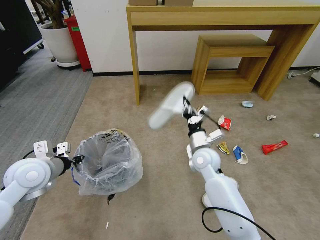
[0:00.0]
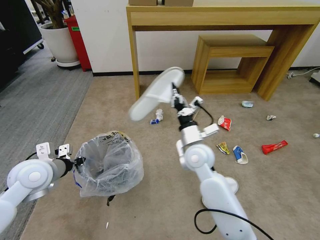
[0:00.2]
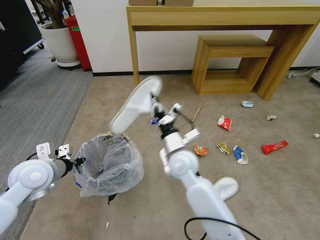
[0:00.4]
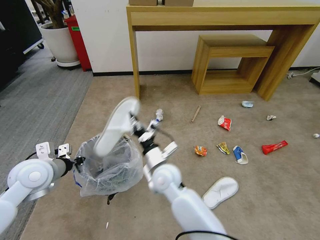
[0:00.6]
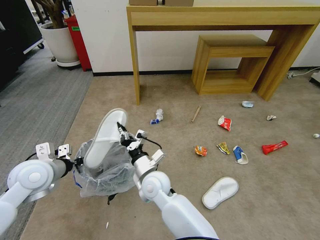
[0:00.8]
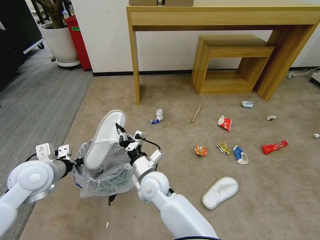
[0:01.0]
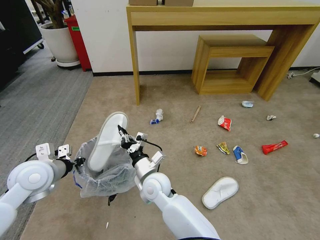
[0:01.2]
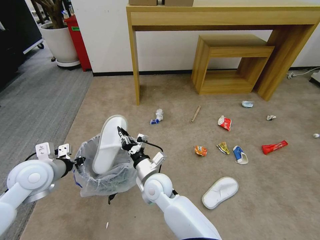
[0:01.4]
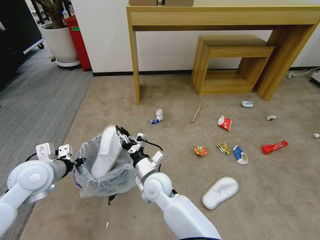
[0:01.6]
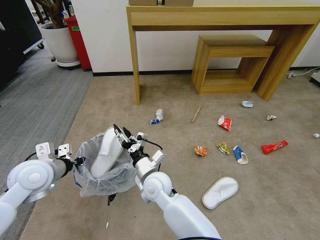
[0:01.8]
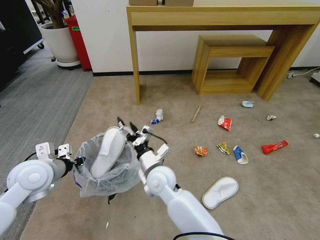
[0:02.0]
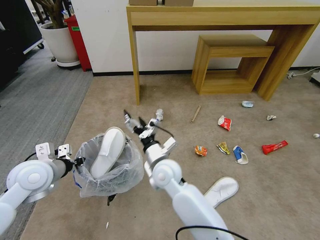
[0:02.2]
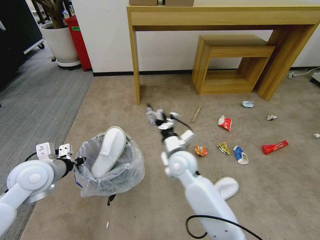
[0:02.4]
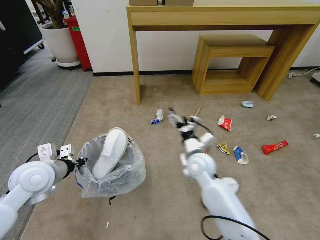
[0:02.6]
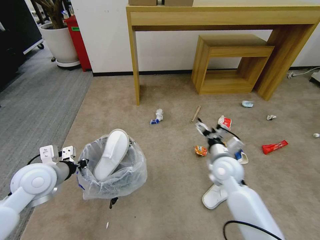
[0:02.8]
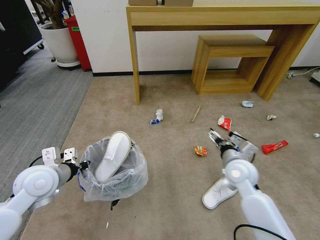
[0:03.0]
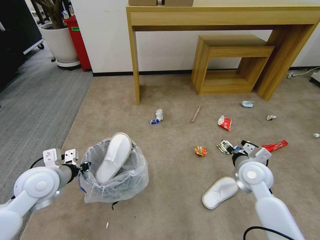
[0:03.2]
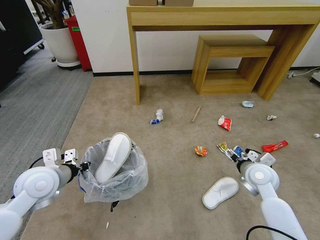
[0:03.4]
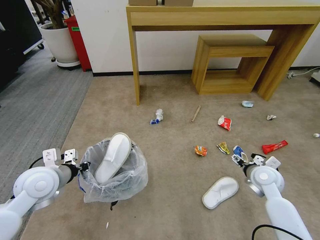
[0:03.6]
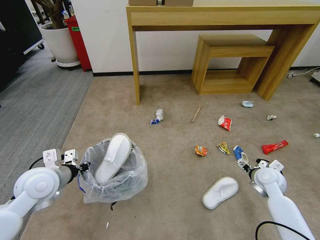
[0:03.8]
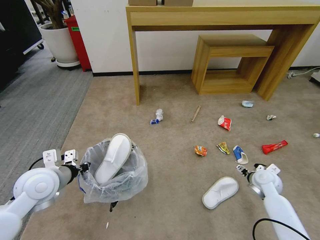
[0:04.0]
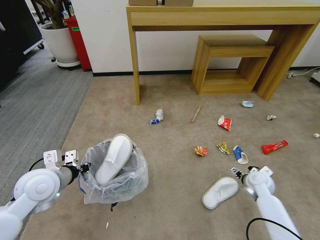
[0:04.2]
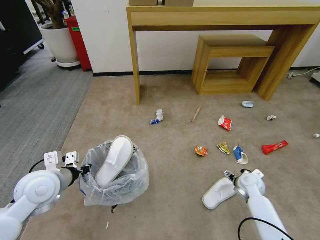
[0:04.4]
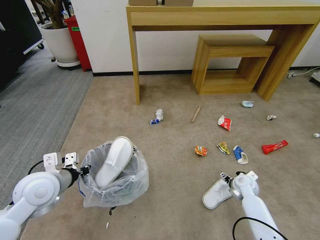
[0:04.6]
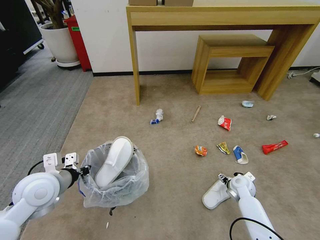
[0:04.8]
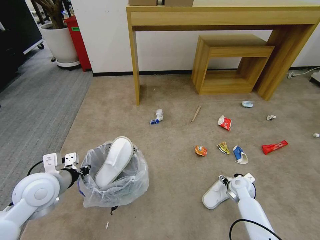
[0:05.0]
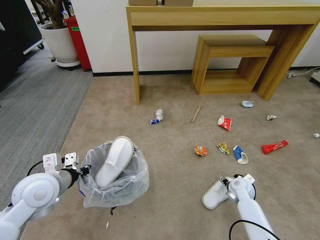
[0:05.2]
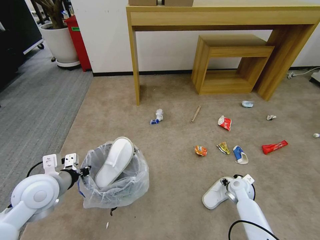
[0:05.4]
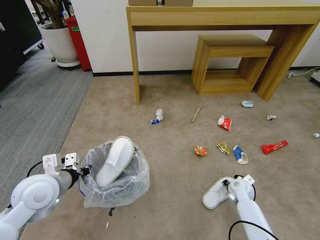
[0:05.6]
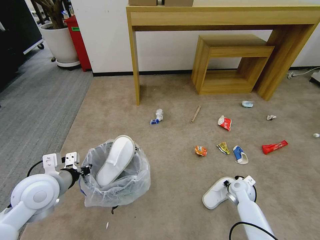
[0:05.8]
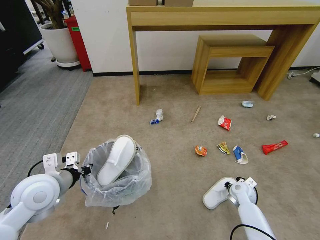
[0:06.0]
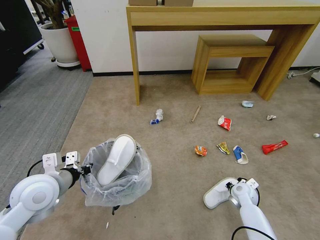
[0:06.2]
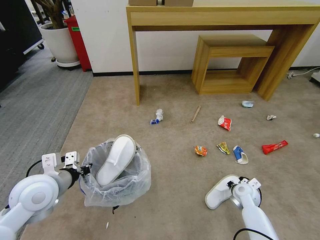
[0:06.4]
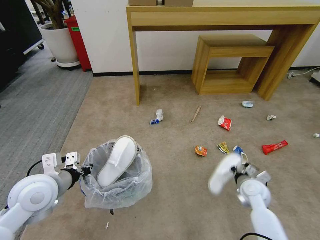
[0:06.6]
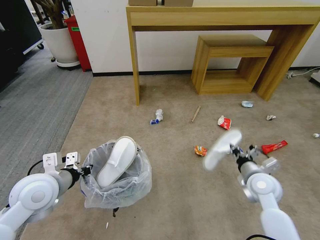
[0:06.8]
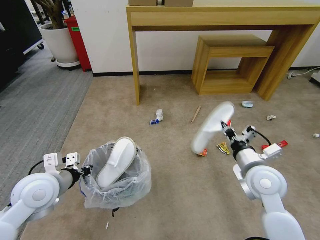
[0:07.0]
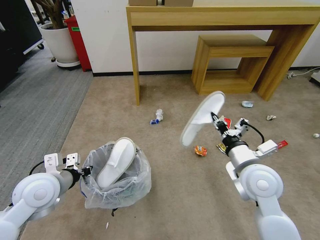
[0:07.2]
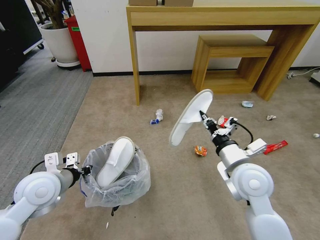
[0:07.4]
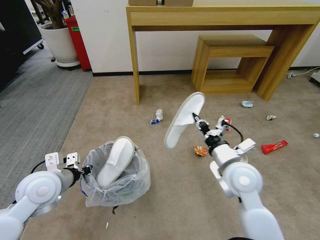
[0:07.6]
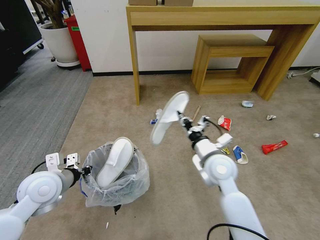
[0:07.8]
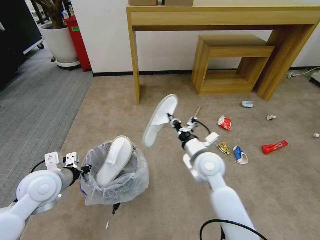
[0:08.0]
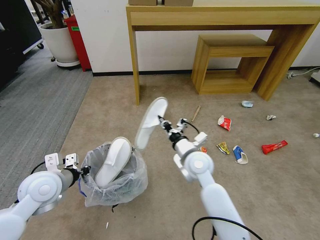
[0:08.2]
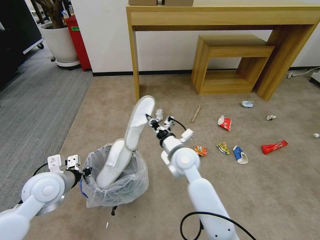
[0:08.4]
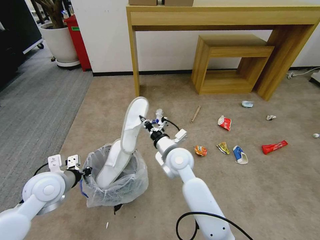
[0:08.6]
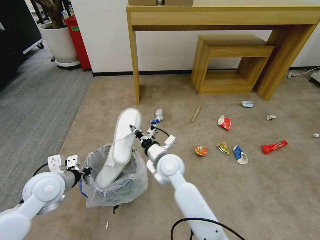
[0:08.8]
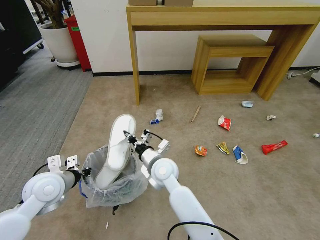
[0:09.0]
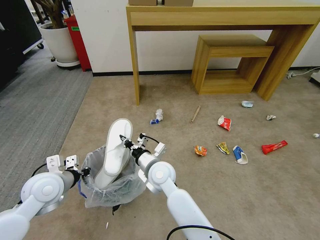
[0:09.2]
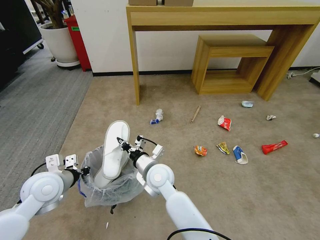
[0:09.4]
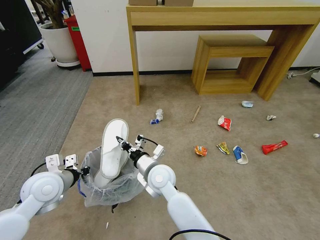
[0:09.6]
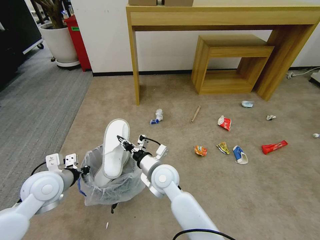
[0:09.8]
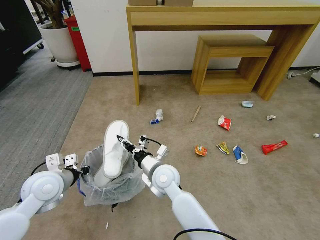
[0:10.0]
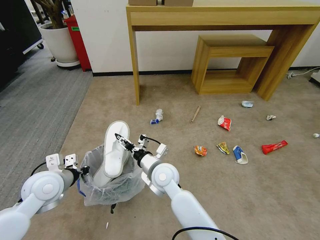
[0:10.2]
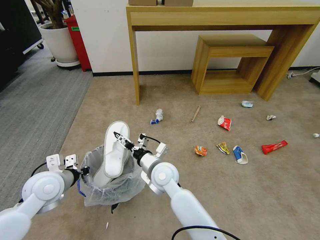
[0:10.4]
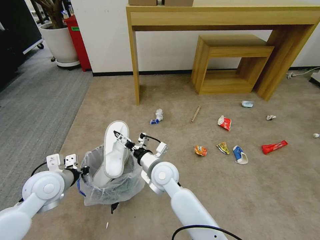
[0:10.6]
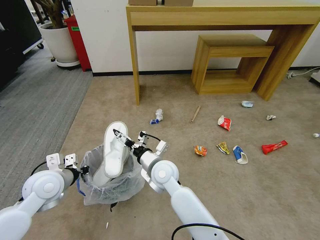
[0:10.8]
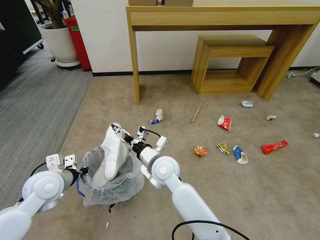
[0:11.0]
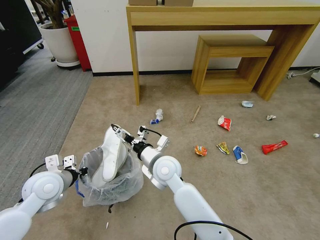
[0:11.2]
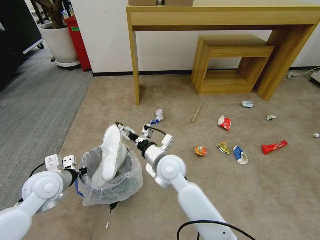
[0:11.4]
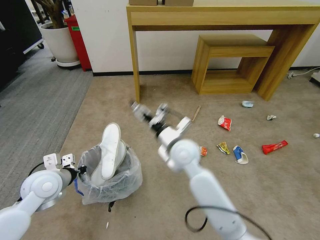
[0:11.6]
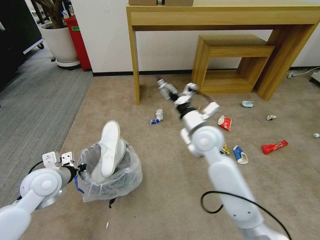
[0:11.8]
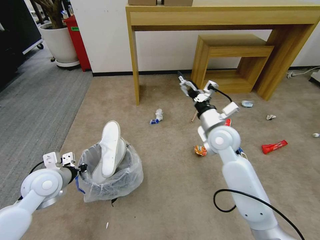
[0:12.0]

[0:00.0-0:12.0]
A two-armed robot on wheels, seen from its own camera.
Task of the whole recording: Pick up the trash bin and place the garbage on the floor into it.
0:00.0 to 0:01.6: The right gripper travels to the left and backward by approximately 20 cm, and opens its fingers.
0:01.6 to 0:03.0: The right gripper travels to the right by roughly 30 cm, and opens its fingers.
0:03.0 to 0:04.4: The right gripper is displaced downward and to the right by about 20 cm.
0:04.4 to 0:06.0: The right gripper moves some 5 cm, and closes its fingers.
0:06.0 to 0:07.6: The right gripper travels upward and to the left by approximately 30 cm.
0:07.6 to 0:09.0: The right gripper moves to the left, approximately 20 cm.
0:09.0 to 0:10.4: The right gripper opens its fingers.
0:10.4 to 0:12.0: The right gripper heads to the right and upward, covering some 20 cm.

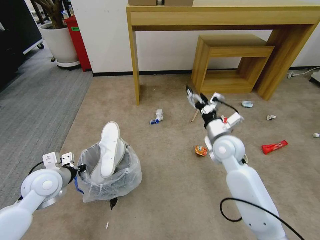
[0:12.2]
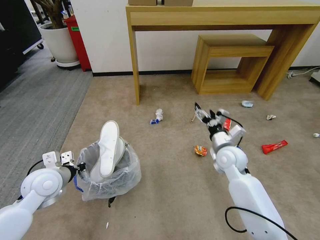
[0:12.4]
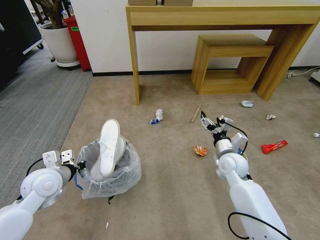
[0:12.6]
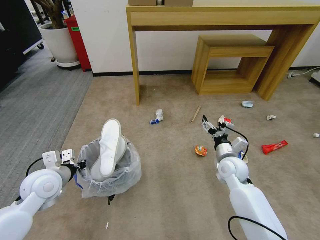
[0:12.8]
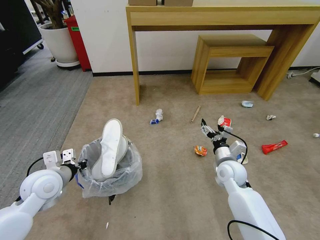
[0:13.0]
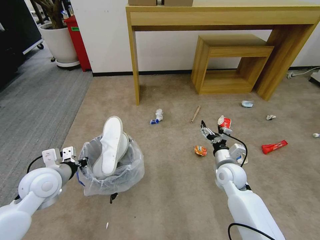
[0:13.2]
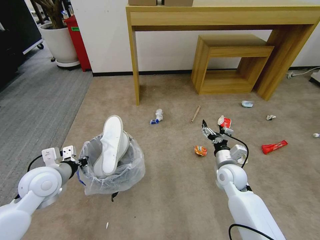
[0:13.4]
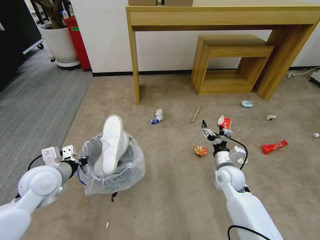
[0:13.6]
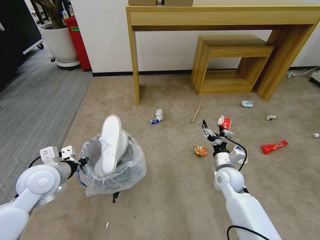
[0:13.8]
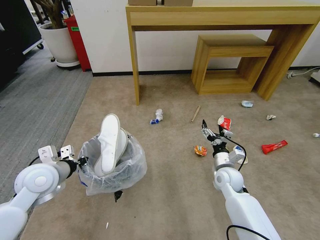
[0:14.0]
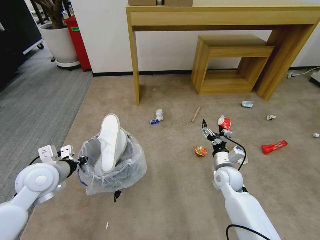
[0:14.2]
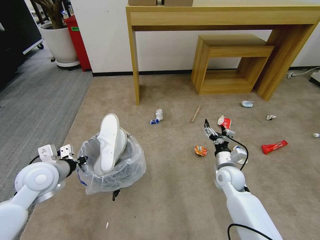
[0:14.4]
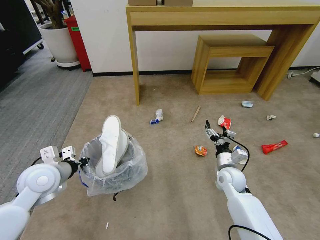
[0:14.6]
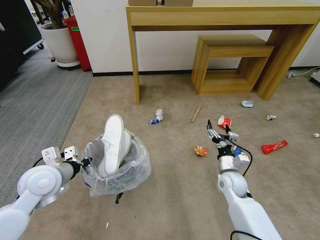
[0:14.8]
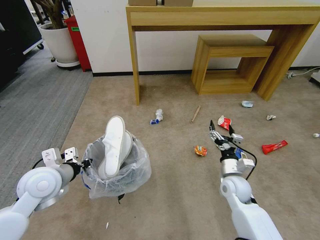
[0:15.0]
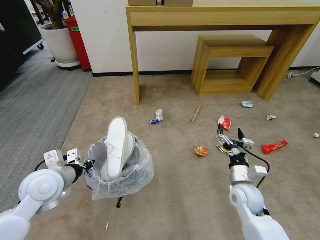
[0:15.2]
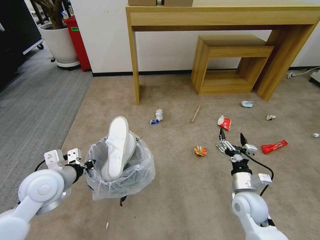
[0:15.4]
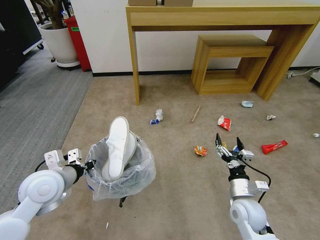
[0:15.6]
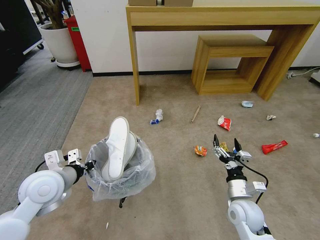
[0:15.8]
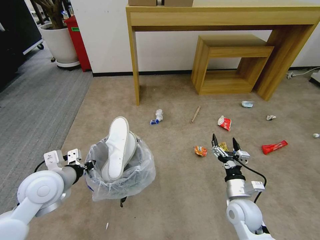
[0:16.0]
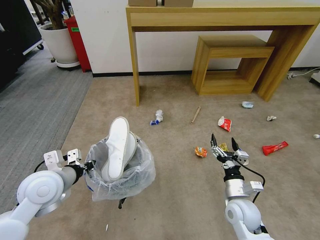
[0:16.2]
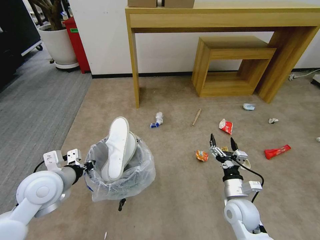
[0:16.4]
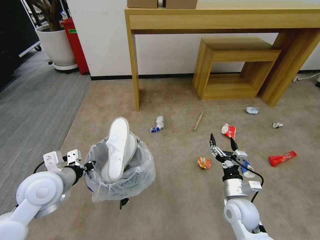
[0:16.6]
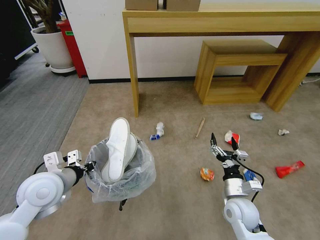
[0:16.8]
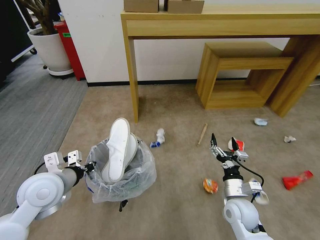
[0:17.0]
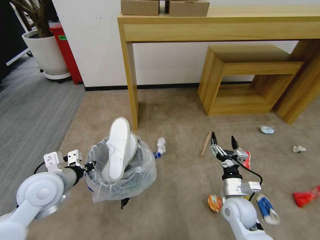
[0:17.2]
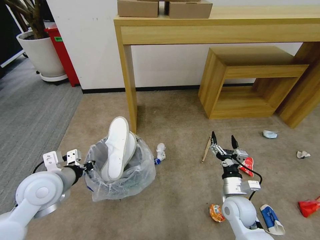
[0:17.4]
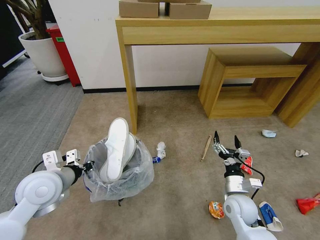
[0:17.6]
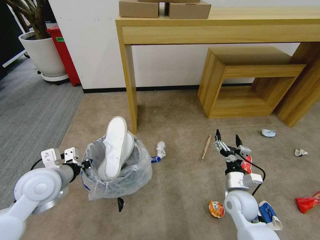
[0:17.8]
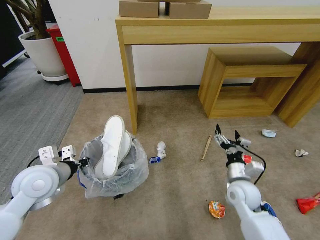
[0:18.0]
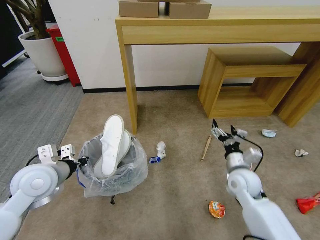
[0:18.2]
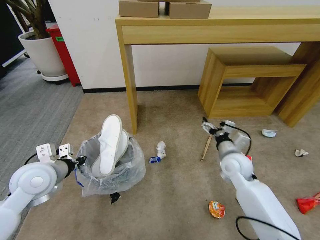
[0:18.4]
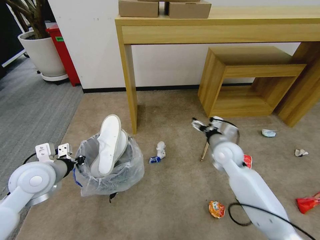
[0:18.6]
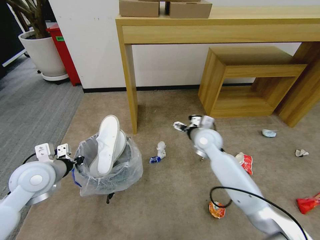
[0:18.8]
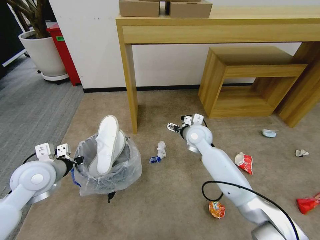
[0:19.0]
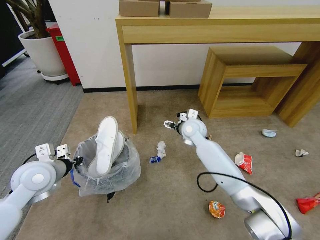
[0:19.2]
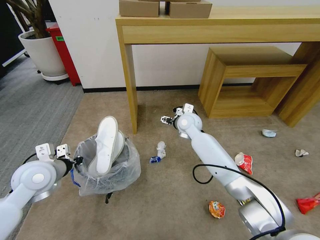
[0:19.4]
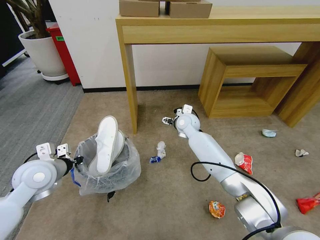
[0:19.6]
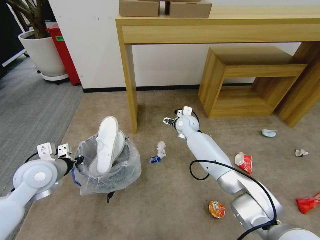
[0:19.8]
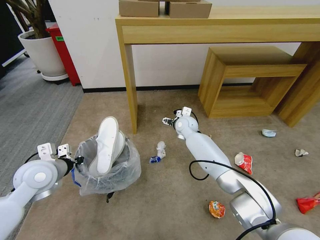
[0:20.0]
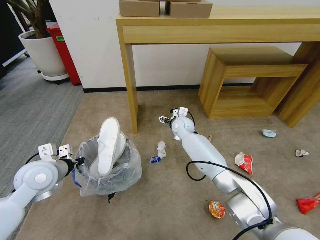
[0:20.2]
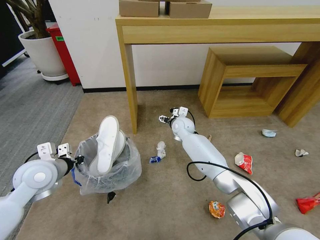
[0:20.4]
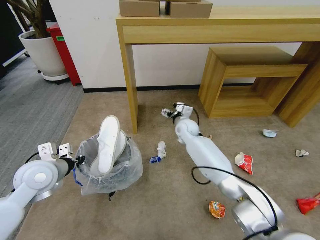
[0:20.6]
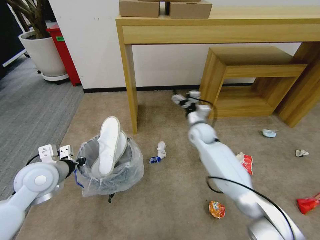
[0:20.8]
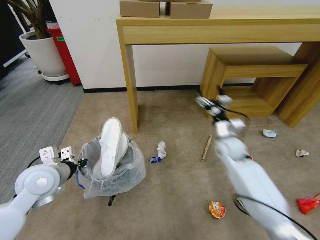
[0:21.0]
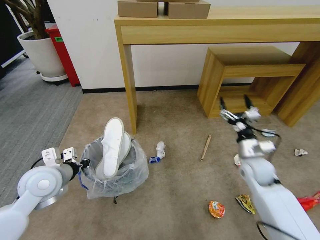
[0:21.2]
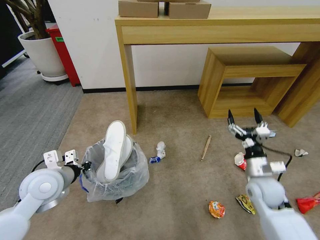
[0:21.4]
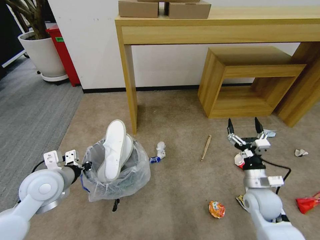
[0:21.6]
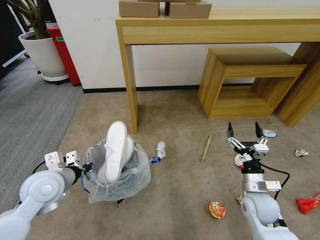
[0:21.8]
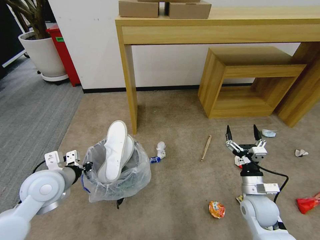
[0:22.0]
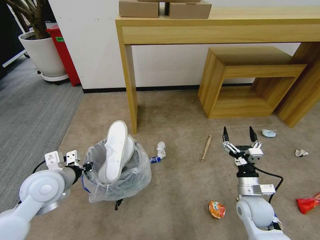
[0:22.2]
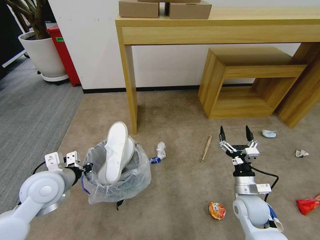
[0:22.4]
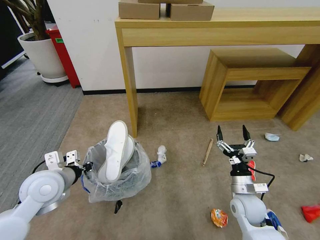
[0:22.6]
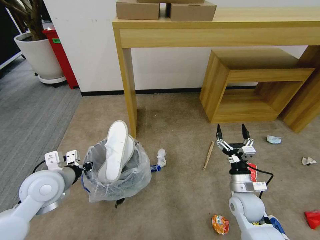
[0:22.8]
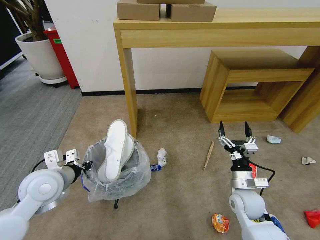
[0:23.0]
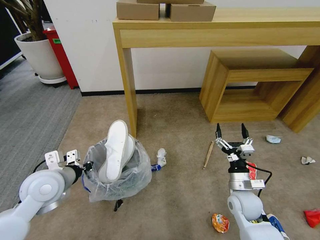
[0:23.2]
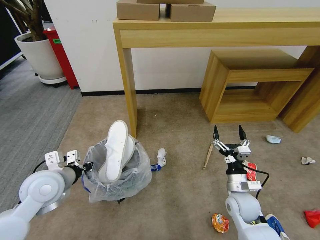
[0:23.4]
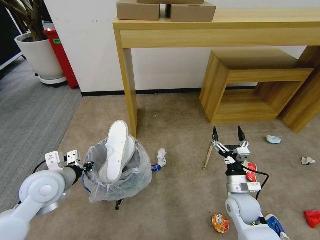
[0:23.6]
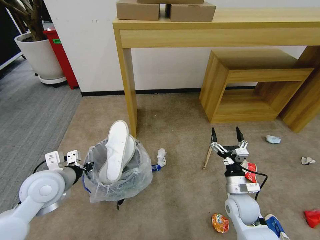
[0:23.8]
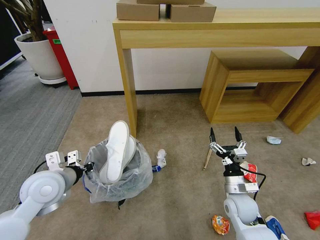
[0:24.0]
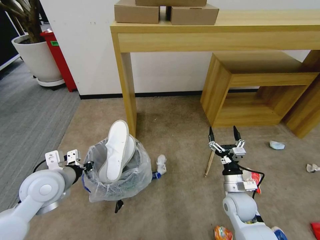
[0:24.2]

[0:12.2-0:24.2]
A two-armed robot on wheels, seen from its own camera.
Task of the whole recording: Pick up the trash bin and place the garbage on the floor into it.
0:12.2 to 0:13.8: The right gripper is displaced downward by roughly 15 cm.
0:13.8 to 0:15.2: The right gripper goes roughly 5 cm backward.
0:15.2 to 0:16.6: The right gripper moves some 5 cm.
0:16.6 to 0:18.2: The right gripper goes some 10 cm forward and upward.
0:18.2 to 0:19.8: The right gripper moves forward and to the left, approximately 30 cm.
0:19.8 to 0:21.2: The right gripper heads backward and to the right, covering roughly 30 cm.
0:21.2 to 0:22.6: The right gripper goes about 10 cm backward and downward.
